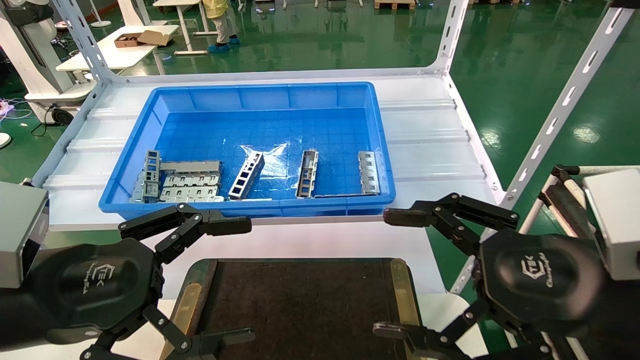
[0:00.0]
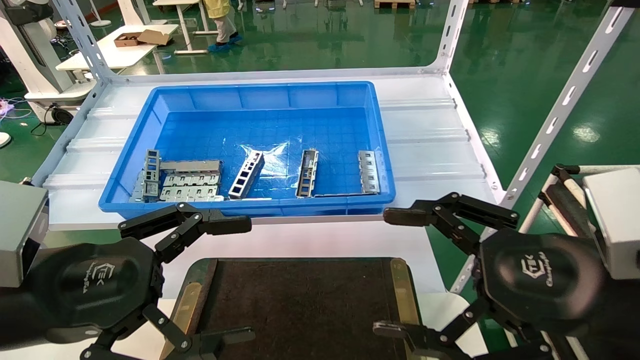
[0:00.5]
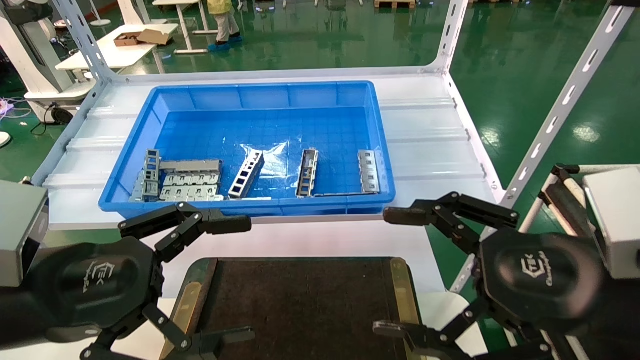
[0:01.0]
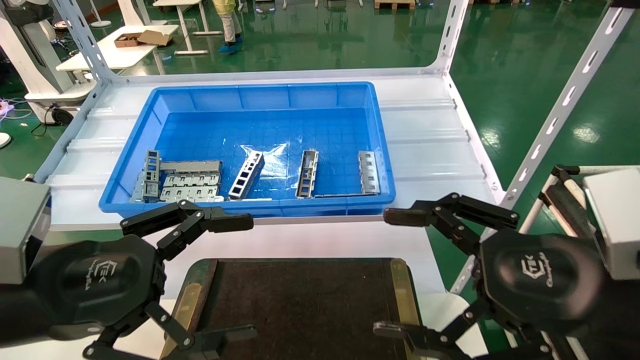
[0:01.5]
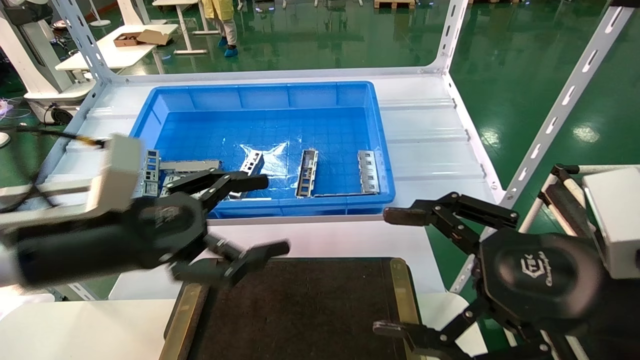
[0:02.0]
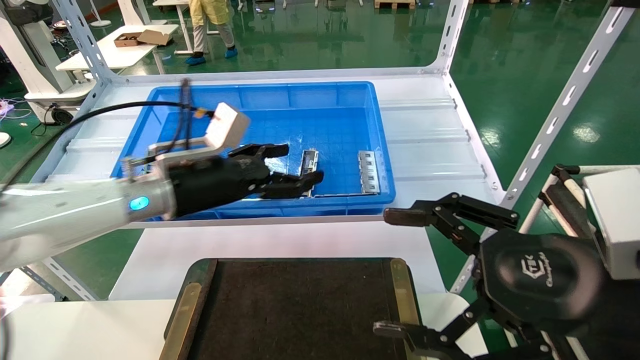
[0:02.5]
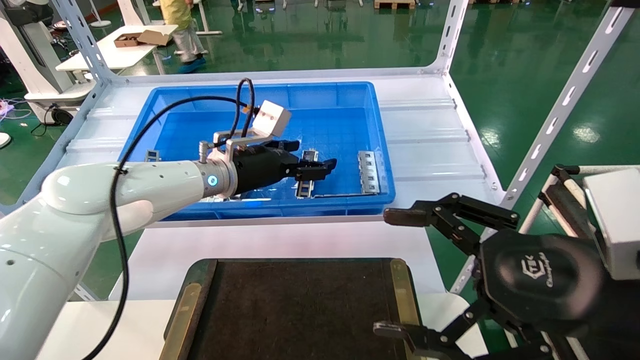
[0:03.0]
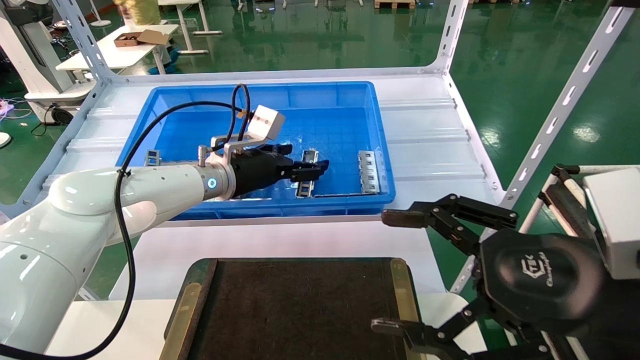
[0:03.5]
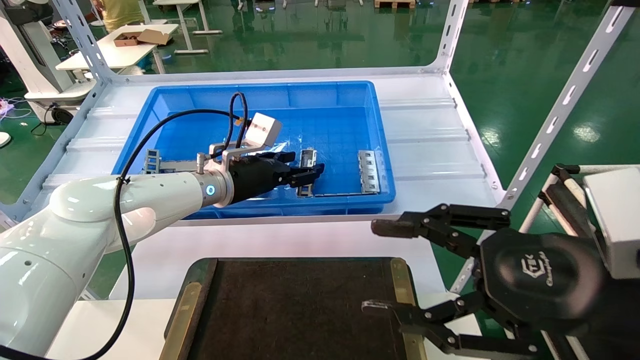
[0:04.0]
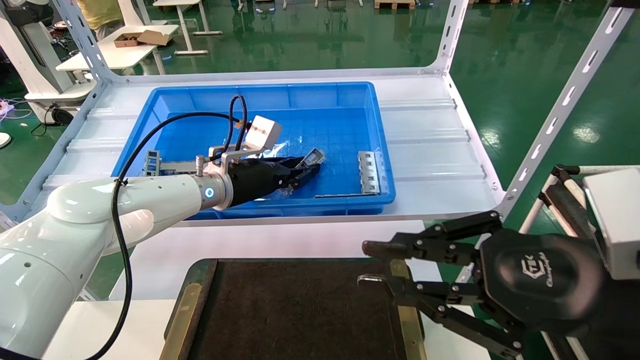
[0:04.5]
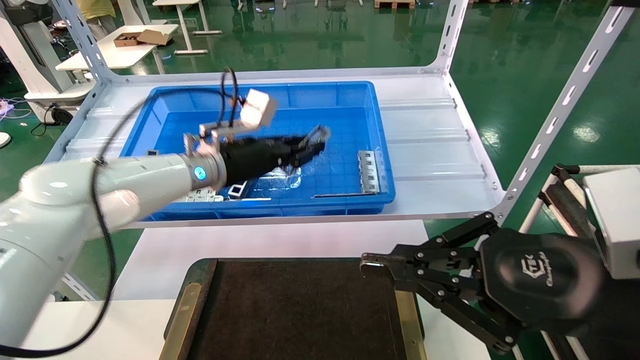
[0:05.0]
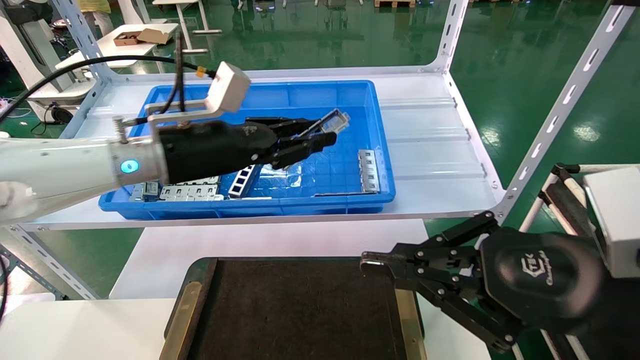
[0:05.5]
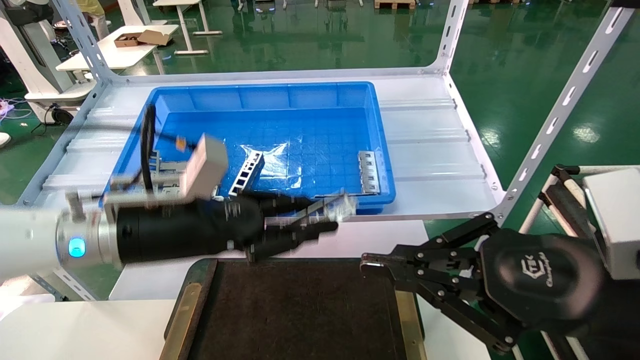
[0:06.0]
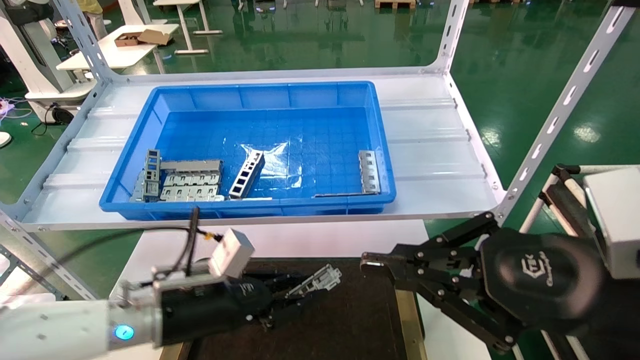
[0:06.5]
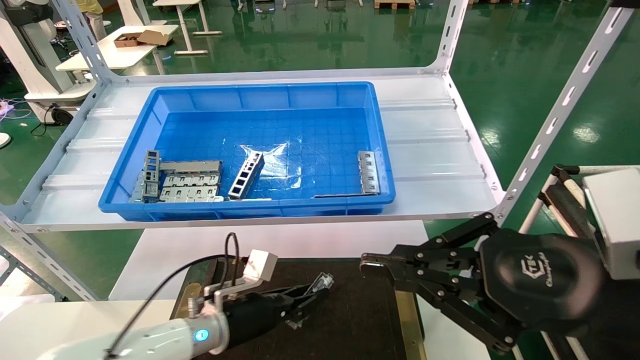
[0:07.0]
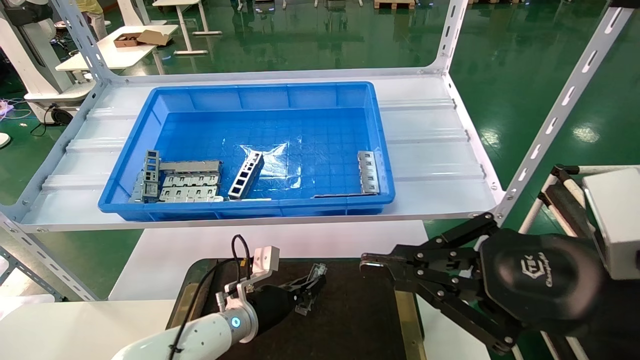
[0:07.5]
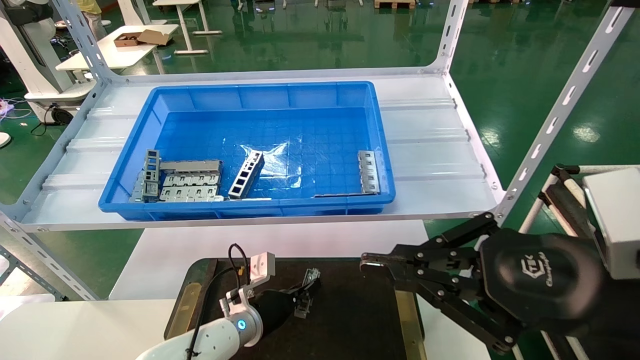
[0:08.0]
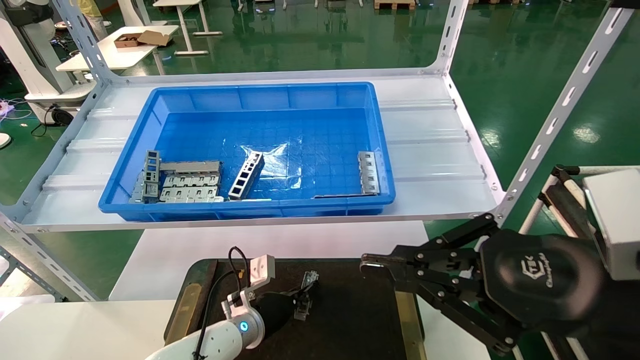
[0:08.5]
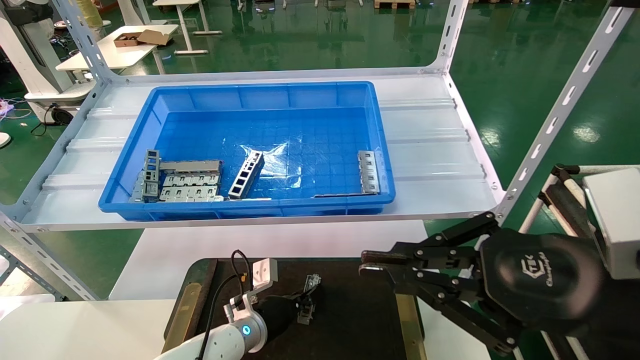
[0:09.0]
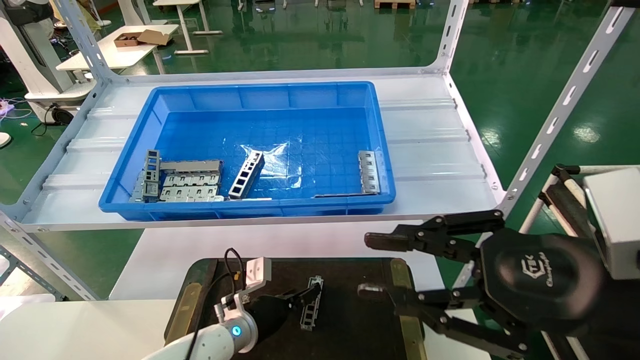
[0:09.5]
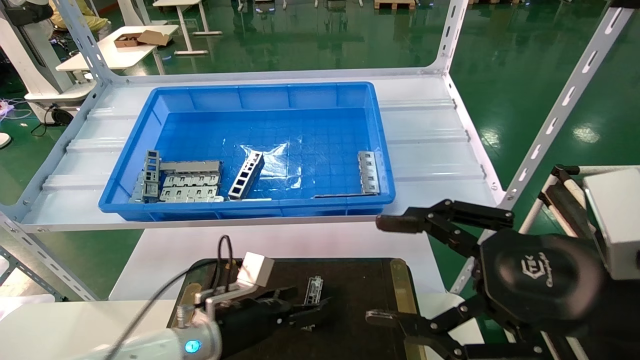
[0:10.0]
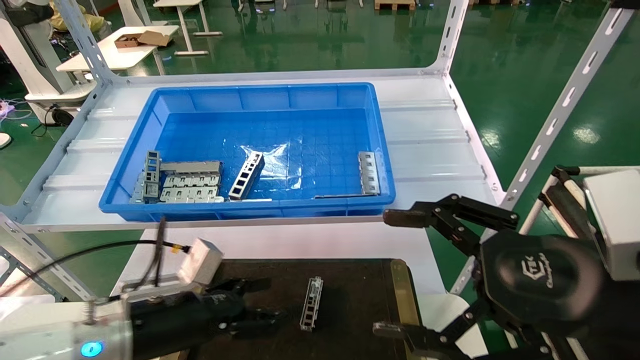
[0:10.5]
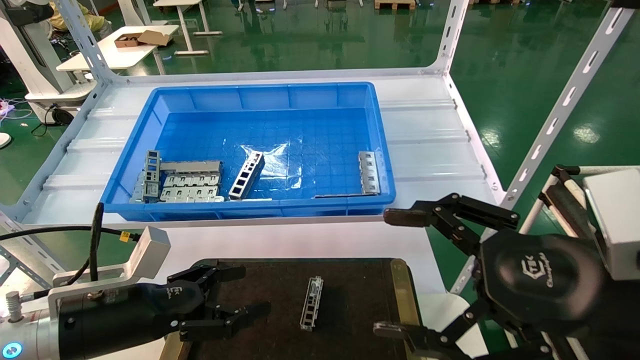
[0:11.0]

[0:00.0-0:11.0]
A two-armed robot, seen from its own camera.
Task of the whole recording: Grasp the part with one hand and place it on the black container.
Step, 0:02.0 to 0:04.5: Pick up the front USB bracket from the feeding area.
Step, 0:05.0 to 0:09.0: Place the front USB bracket into the box.
0:00.0 to 0:02.0: The left gripper shifts about 10 cm forward.
0:02.0 to 0:03.5: The left gripper goes some 25 cm forward and to the right.
0:03.5 to 0:05.5: The left gripper travels backward and upward by some 10 cm, and closes its fingers, while the right gripper closes its fingers.
0:05.5 to 0:07.5: The left gripper goes approximately 30 cm downward.
0:07.5 to 0:09.0: The grippers move only a little.
0:09.0 to 0:11.0: The left gripper is displaced backward, upward and to the left by approximately 30 cm, and opens up. The right gripper opens its fingers.
